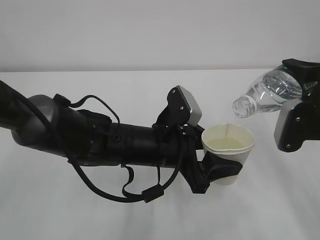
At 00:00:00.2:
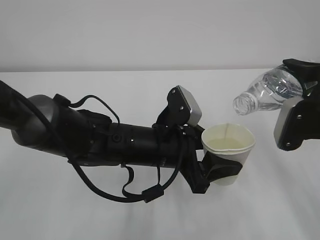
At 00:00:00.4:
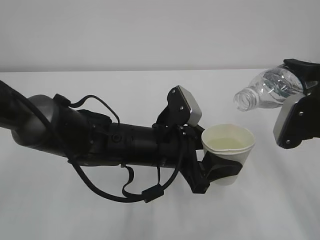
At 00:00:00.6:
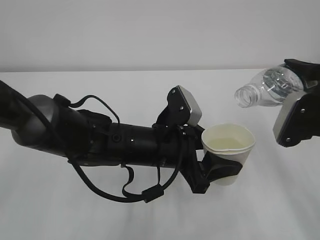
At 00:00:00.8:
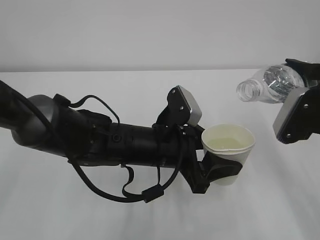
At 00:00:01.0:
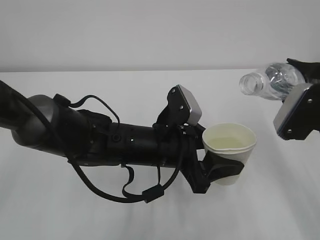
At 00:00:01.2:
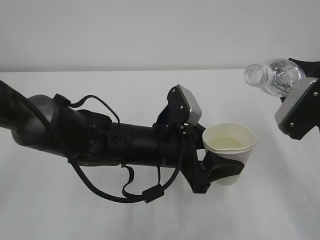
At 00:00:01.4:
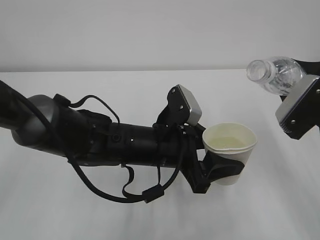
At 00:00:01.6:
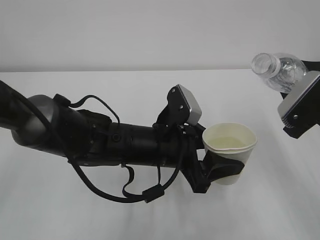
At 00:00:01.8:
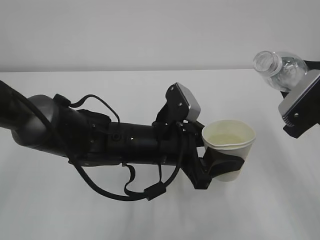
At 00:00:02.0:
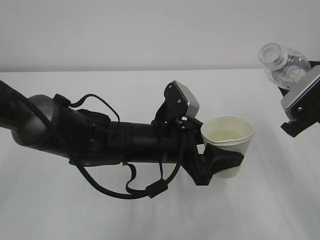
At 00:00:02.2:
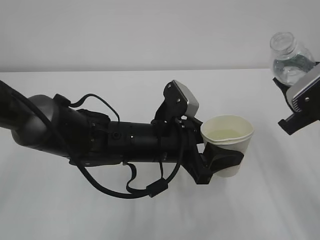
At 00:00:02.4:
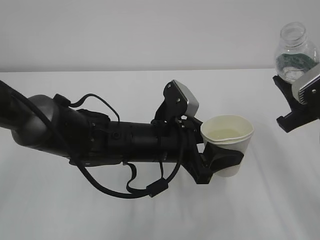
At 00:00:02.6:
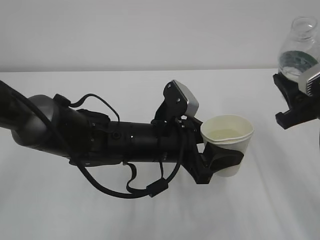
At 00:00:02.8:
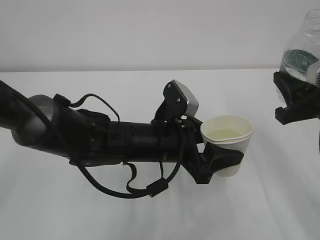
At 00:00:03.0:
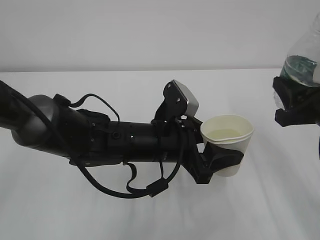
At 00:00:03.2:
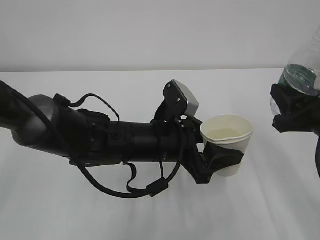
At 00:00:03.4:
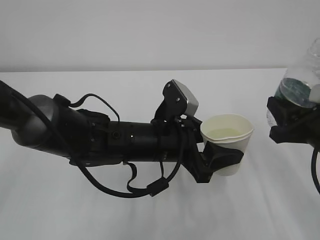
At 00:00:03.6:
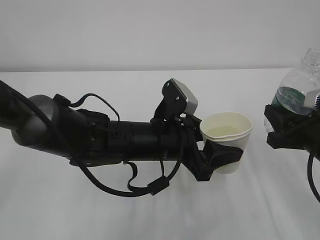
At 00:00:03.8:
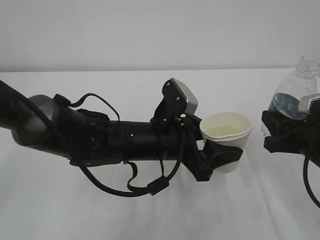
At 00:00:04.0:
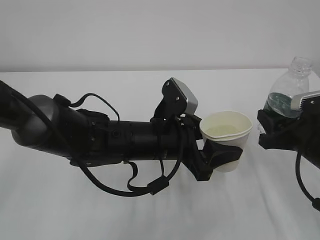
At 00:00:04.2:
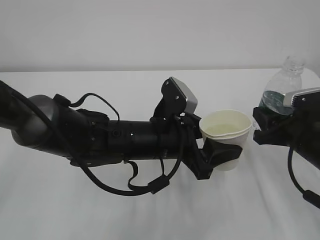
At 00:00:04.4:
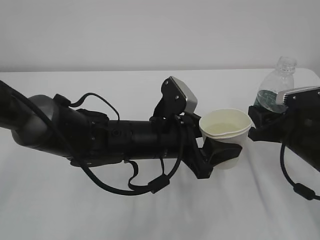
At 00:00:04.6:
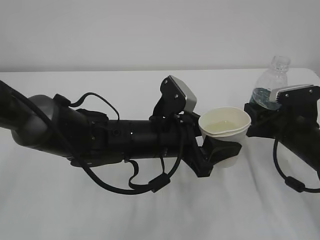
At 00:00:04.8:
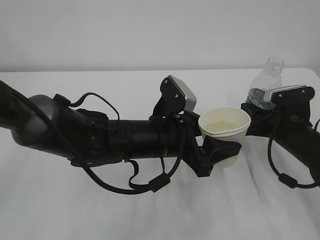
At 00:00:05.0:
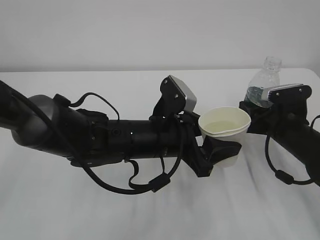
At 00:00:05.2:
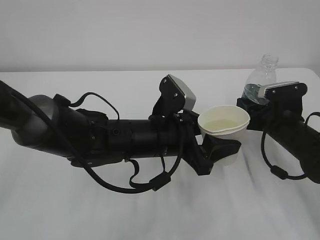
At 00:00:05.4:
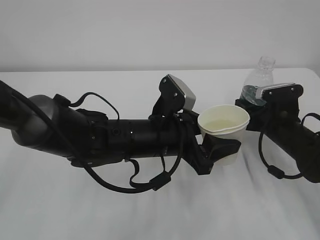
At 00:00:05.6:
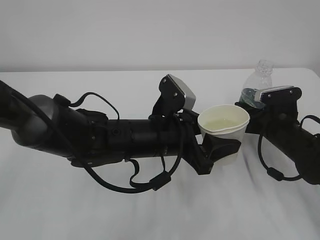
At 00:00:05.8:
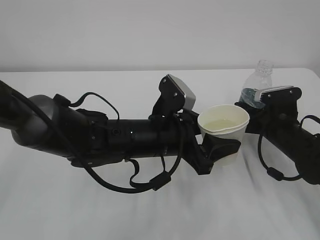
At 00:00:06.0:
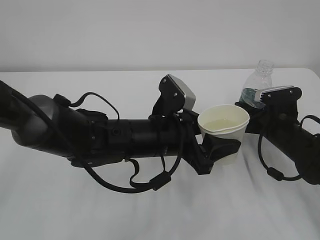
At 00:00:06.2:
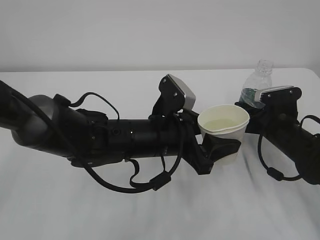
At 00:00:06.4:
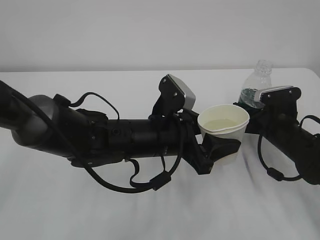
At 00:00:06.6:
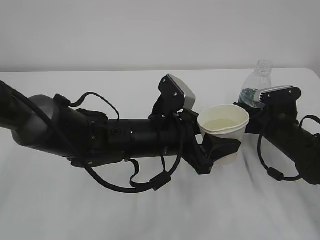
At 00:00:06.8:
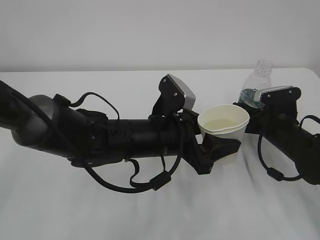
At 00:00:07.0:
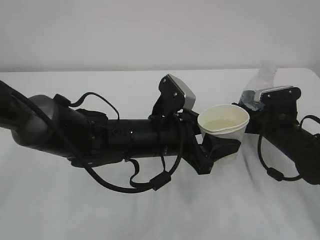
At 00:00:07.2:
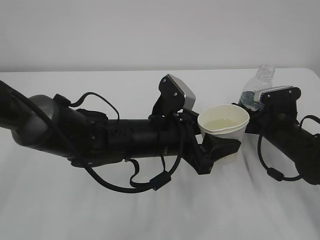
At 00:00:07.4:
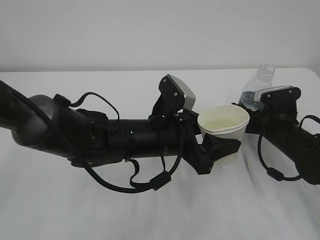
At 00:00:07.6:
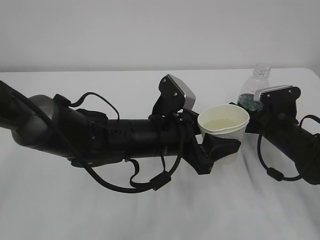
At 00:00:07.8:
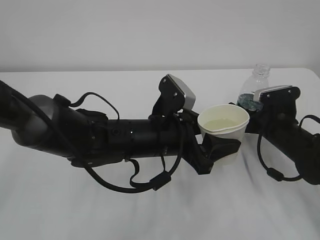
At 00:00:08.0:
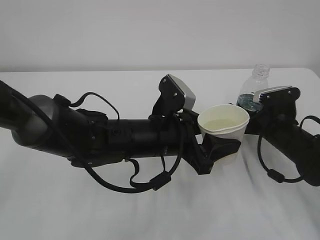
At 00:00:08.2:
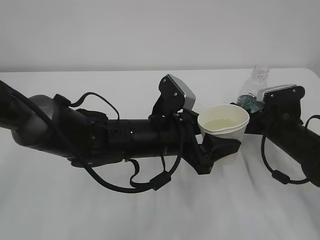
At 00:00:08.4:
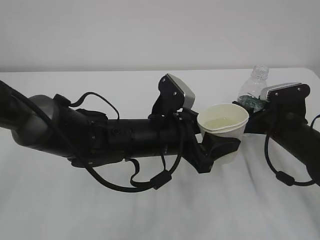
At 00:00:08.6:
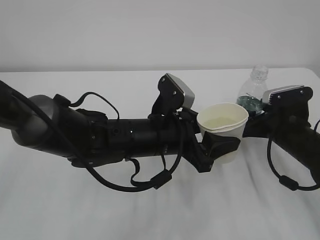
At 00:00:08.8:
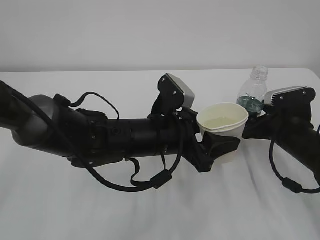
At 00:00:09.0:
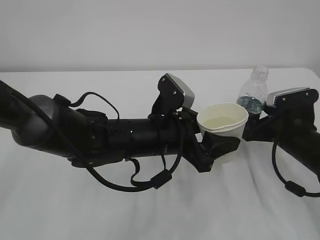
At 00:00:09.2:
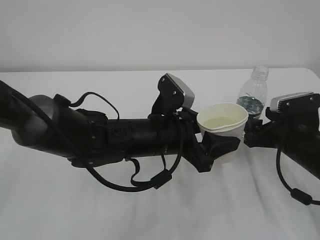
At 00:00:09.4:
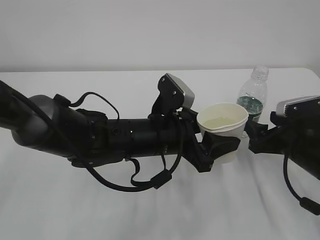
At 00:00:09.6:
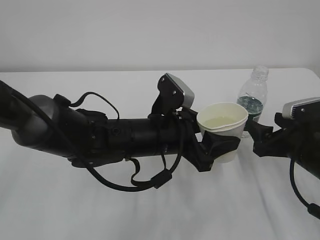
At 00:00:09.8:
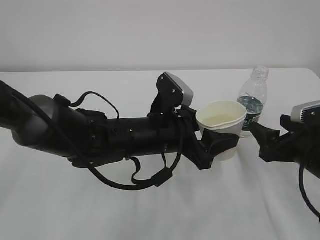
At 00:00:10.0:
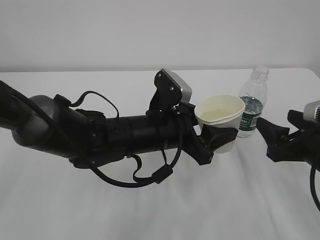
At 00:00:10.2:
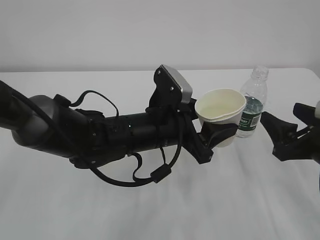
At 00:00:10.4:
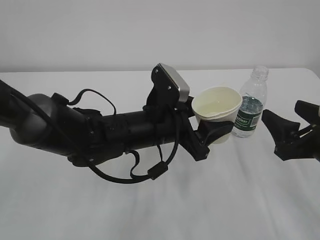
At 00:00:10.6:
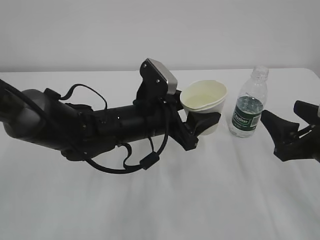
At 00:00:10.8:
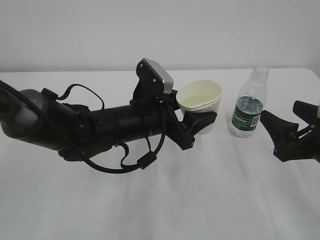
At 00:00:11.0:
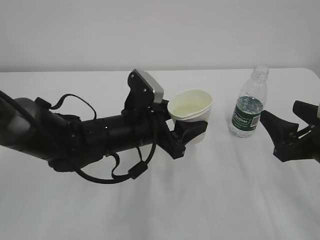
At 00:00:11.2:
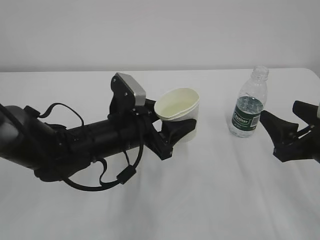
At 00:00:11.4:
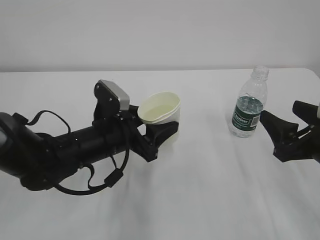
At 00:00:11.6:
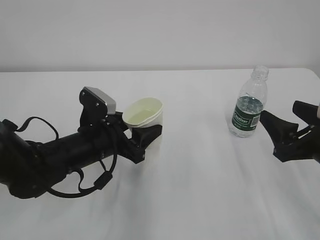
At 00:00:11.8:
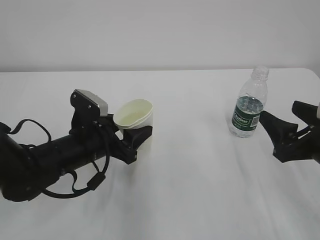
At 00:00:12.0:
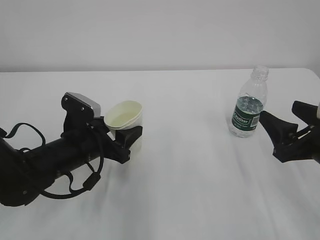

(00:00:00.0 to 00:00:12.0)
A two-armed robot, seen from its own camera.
00:00:03.0 - 00:00:04.4: The right gripper moves downward and forward, approximately 10 cm.
00:00:04.4 - 00:00:06.0: The right gripper travels forward by about 5 cm.
00:00:07.6 - 00:00:09.0: The grippers move only a little.
00:00:09.0 - 00:00:10.4: The right gripper shifts approximately 10 cm backward and upward.
00:00:10.4 - 00:00:12.0: The left gripper is displaced to the left and downward by roughly 15 cm.

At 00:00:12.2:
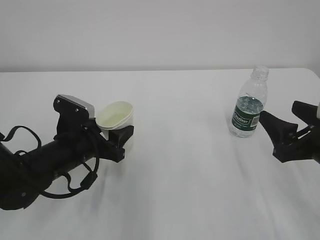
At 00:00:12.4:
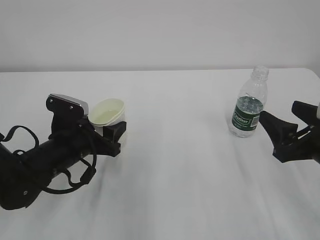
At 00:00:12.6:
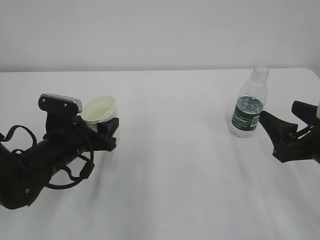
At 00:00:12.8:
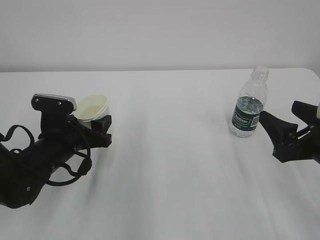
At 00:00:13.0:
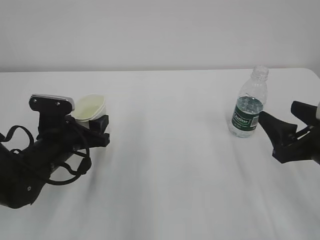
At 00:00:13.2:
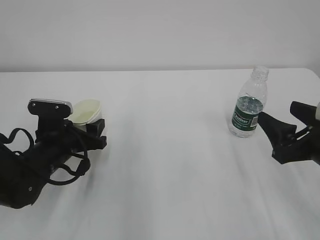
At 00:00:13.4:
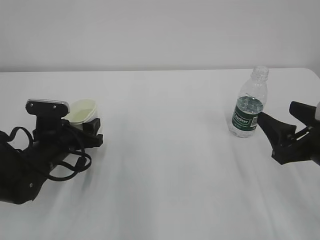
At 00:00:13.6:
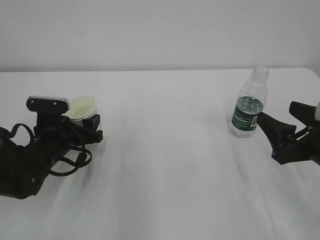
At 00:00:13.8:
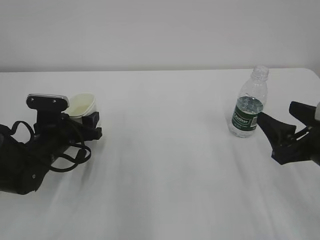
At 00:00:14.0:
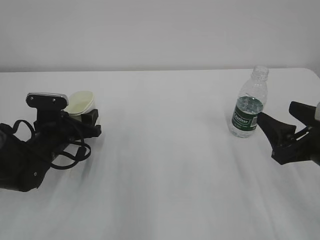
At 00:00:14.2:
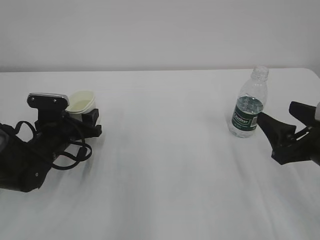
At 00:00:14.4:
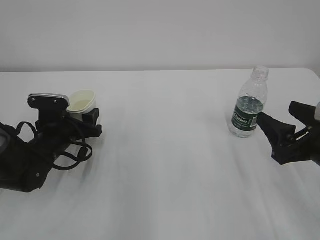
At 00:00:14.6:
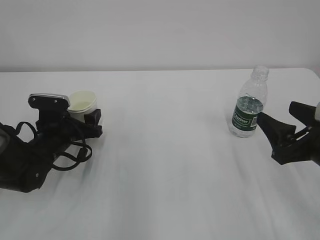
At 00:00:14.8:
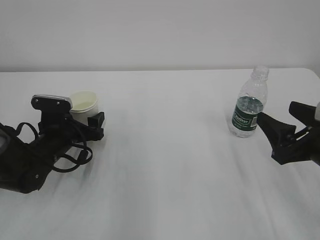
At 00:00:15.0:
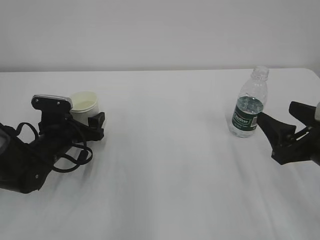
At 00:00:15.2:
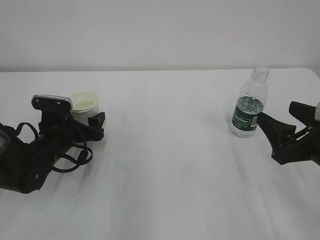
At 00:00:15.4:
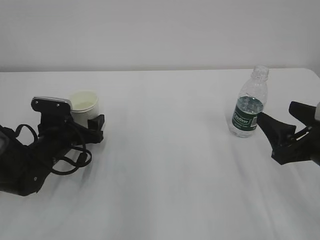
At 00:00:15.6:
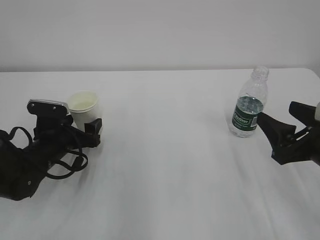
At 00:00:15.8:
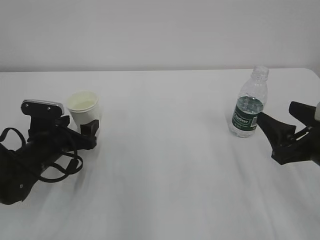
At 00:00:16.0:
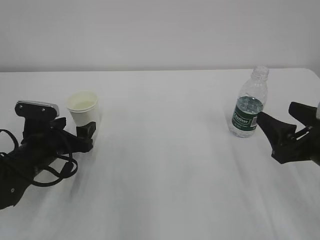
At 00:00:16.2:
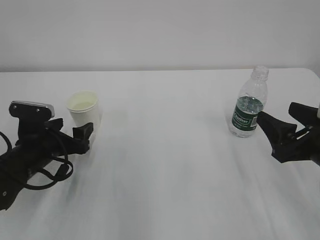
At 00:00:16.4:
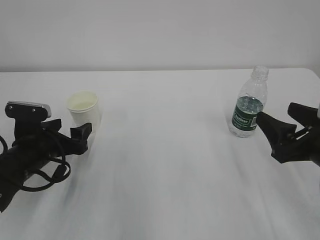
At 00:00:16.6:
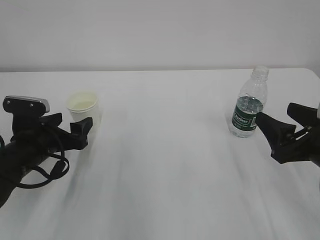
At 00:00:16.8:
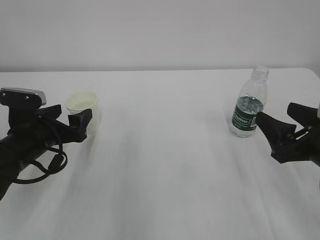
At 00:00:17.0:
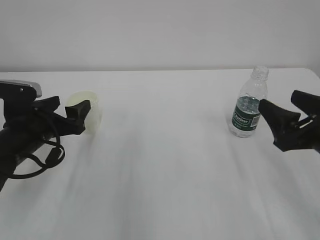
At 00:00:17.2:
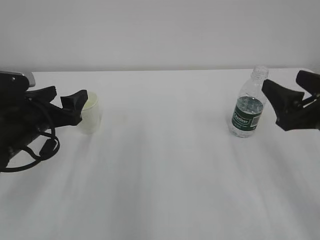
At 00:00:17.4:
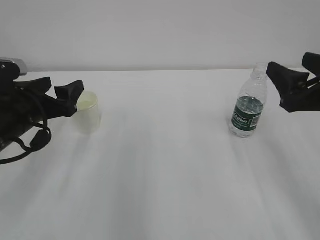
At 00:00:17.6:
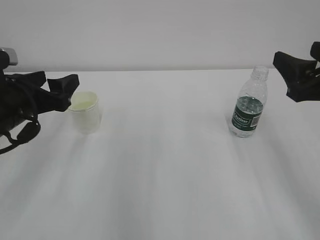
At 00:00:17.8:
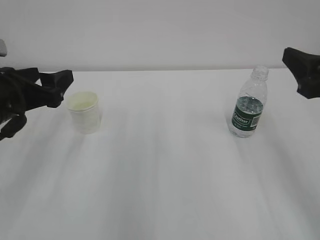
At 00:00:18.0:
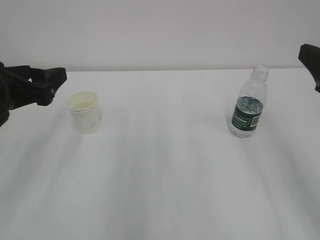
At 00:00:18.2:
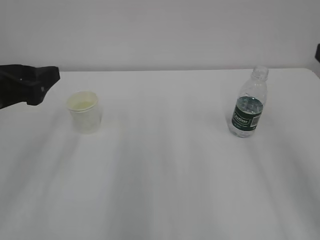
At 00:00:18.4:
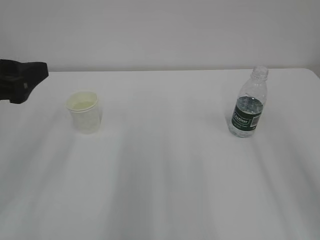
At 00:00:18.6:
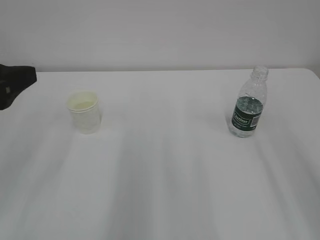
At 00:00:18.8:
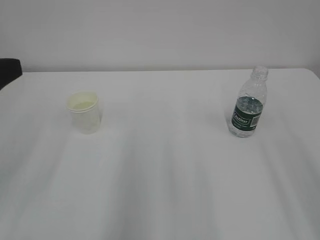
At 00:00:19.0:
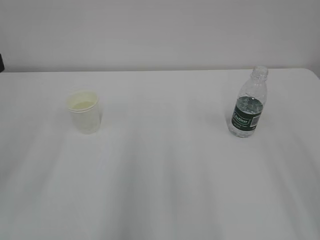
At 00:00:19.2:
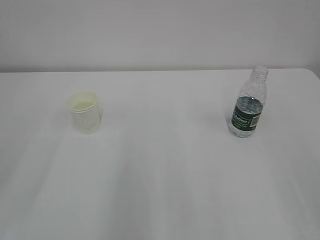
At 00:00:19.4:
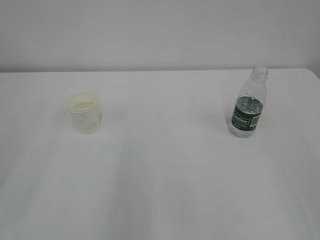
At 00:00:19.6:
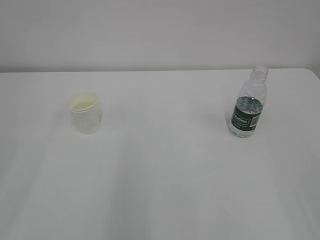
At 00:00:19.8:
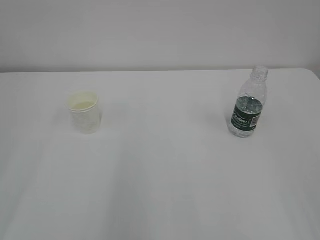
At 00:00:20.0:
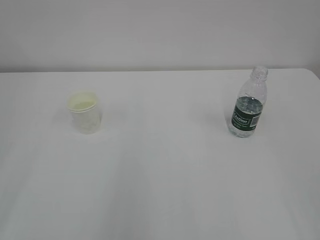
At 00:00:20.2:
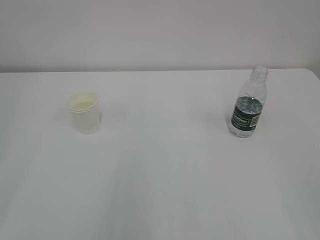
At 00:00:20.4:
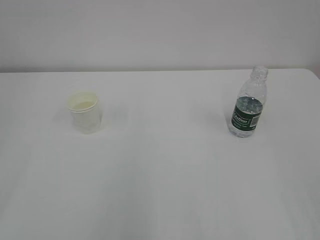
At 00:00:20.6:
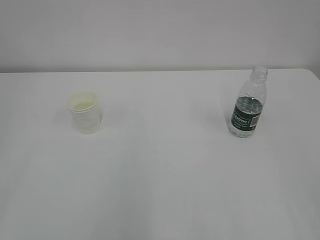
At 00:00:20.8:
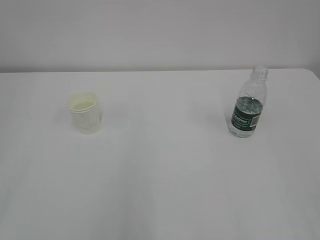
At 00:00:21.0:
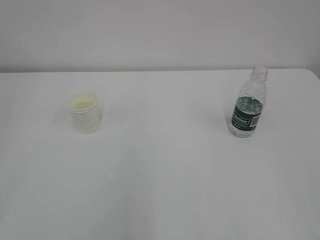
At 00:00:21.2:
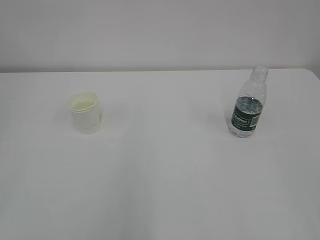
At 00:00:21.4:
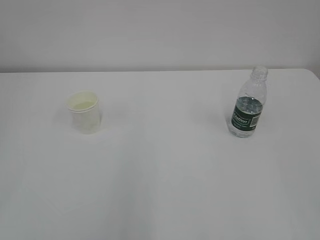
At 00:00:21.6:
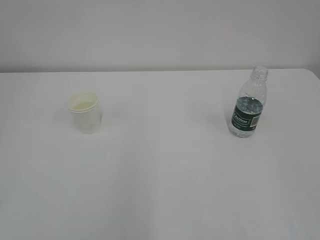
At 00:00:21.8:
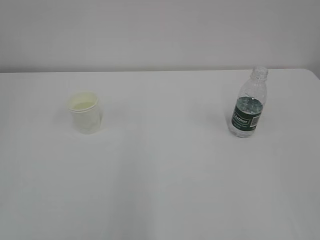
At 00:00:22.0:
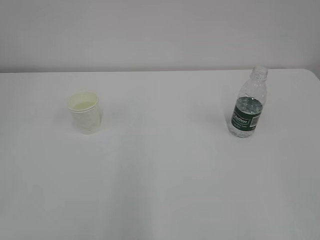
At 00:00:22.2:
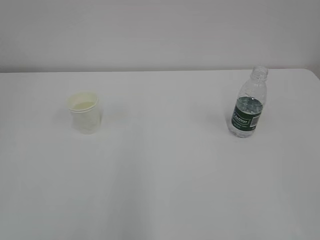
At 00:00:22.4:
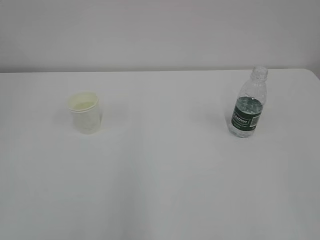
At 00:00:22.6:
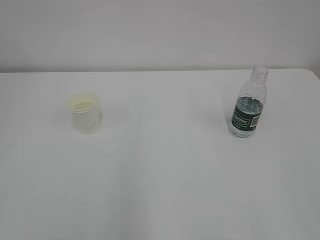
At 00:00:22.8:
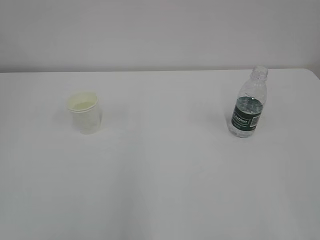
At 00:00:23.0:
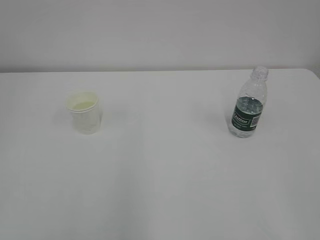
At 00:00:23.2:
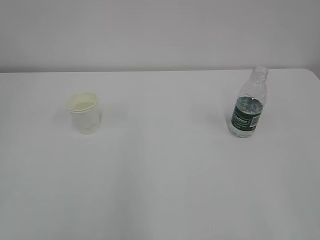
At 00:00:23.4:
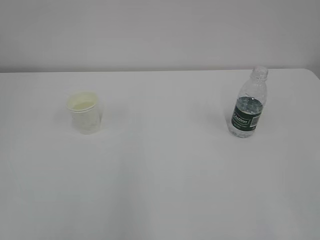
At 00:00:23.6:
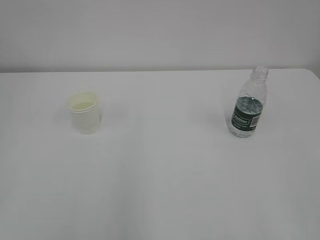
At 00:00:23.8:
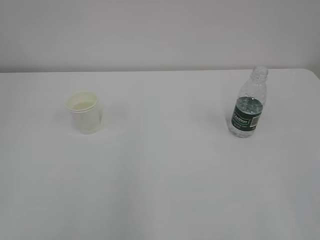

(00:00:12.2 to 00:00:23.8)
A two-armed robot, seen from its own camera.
00:00:12.2 - 00:00:13.6: The left gripper shifts by approximately 5 cm.
00:00:13.6 - 00:00:15.0: The left gripper opens up.
00:00:15.0 - 00:00:16.6: The left gripper travels backward by approximately 5 cm.
00:00:16.6 - 00:00:18.0: The grippers both shift upward by some 15 cm.
00:00:18.0 - 00:00:19.4: The right gripper moves backward, some 15 cm, while the left gripper goes about 15 cm backward and upward.
